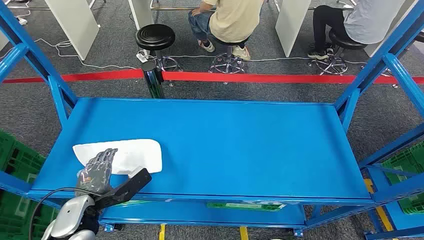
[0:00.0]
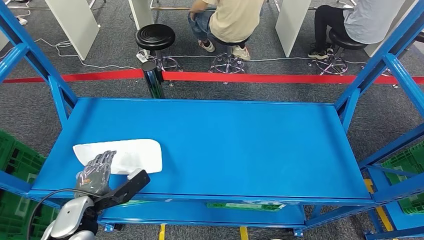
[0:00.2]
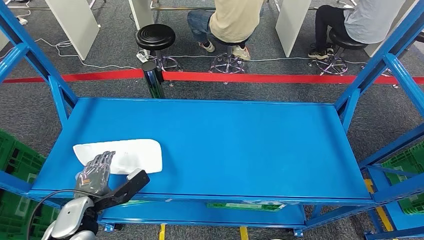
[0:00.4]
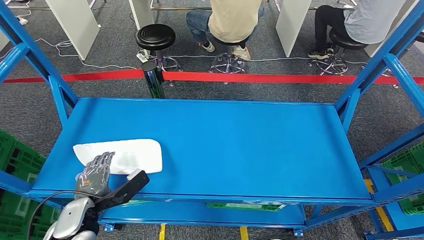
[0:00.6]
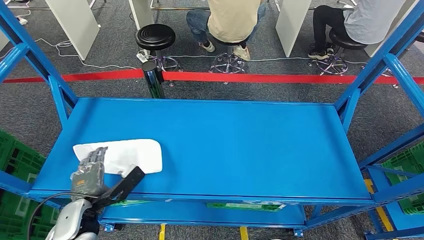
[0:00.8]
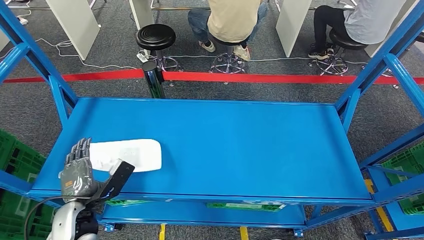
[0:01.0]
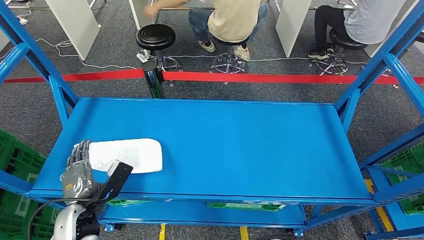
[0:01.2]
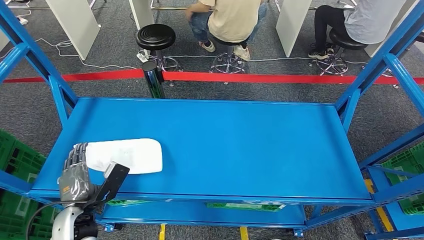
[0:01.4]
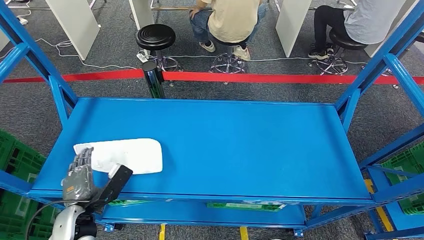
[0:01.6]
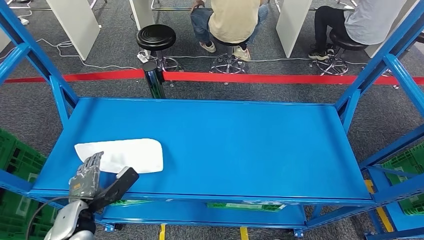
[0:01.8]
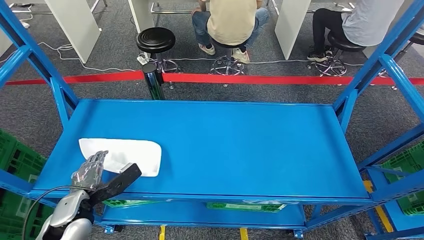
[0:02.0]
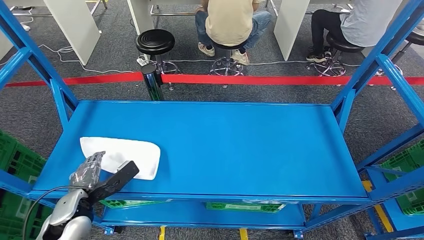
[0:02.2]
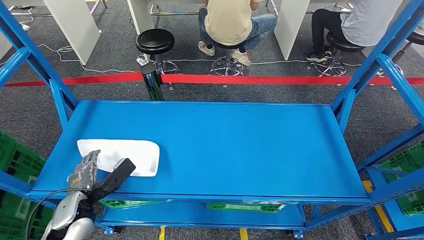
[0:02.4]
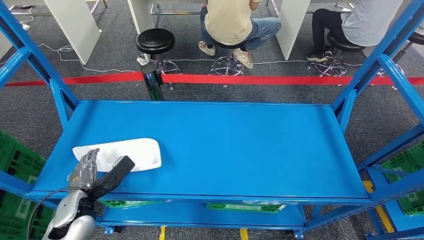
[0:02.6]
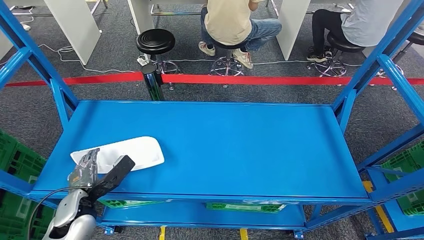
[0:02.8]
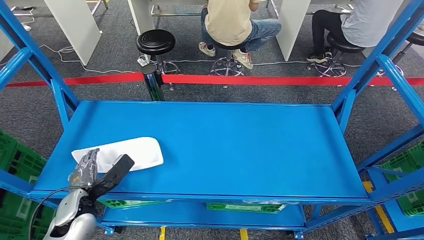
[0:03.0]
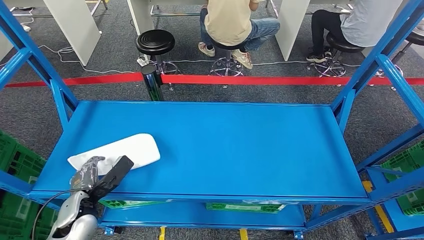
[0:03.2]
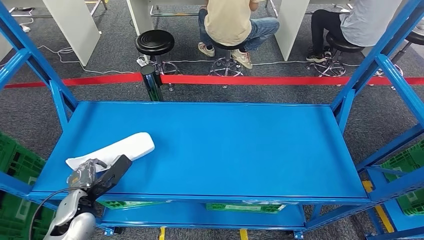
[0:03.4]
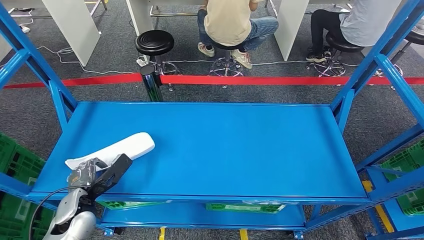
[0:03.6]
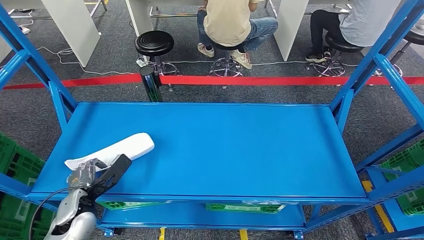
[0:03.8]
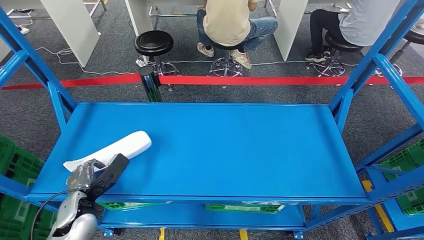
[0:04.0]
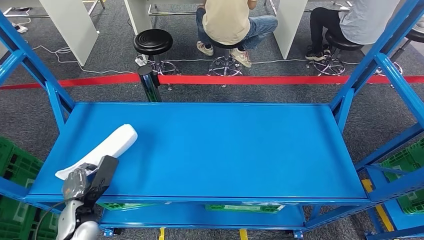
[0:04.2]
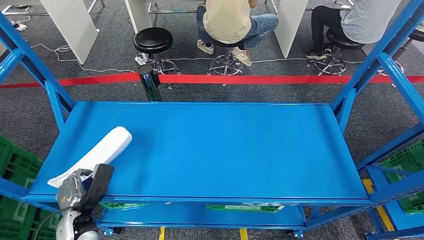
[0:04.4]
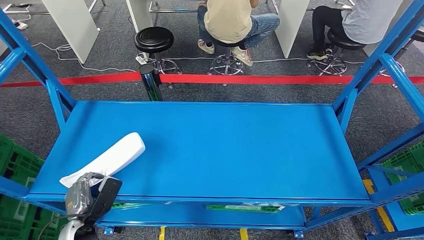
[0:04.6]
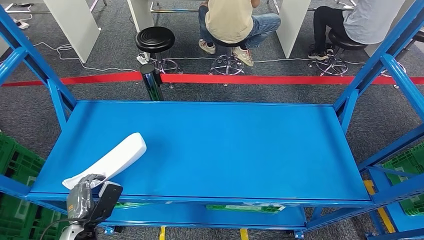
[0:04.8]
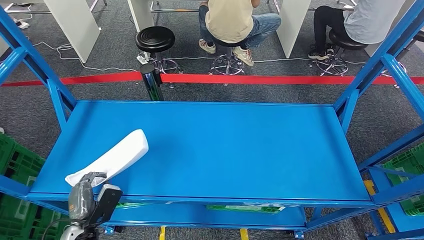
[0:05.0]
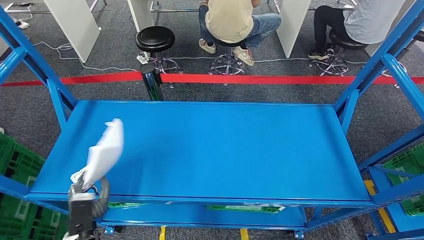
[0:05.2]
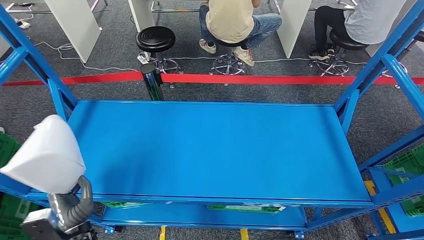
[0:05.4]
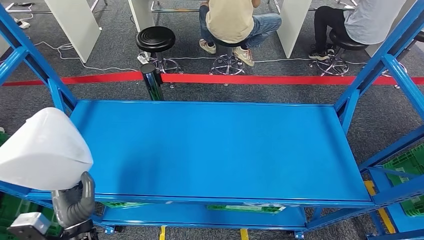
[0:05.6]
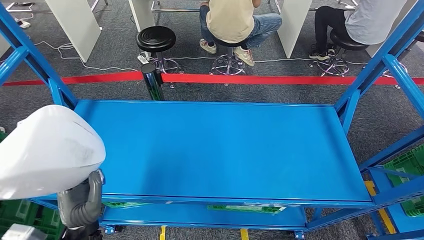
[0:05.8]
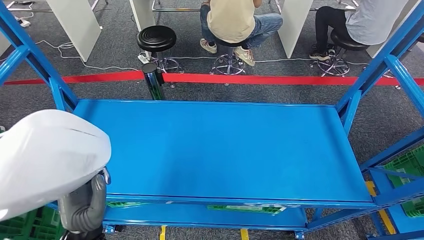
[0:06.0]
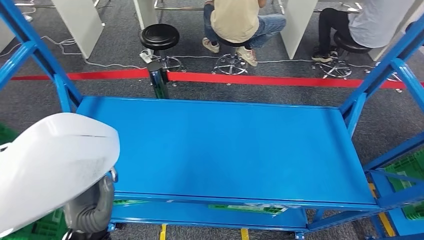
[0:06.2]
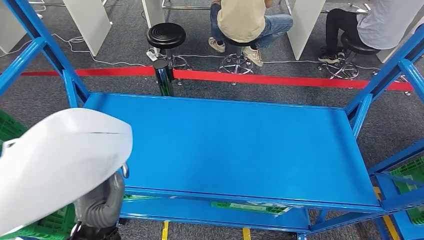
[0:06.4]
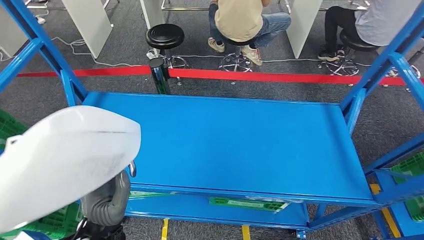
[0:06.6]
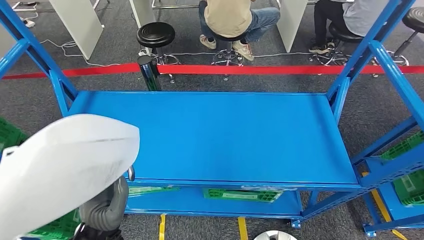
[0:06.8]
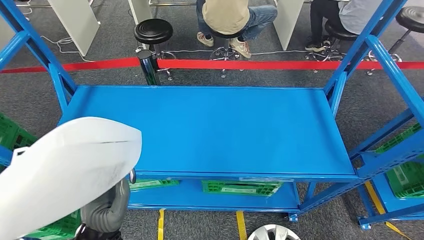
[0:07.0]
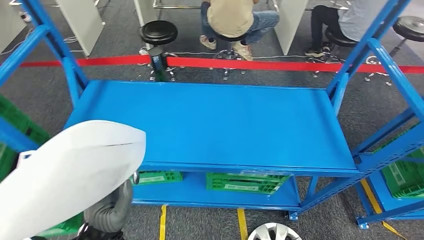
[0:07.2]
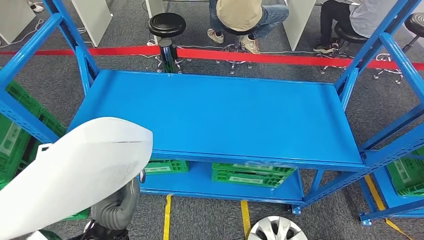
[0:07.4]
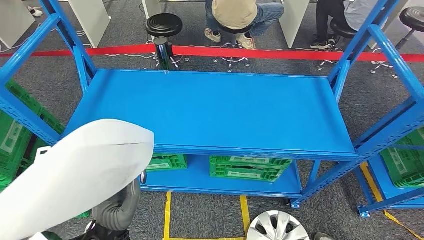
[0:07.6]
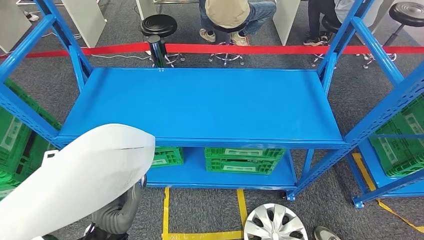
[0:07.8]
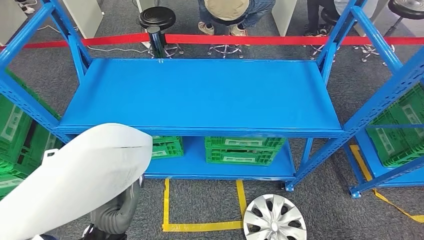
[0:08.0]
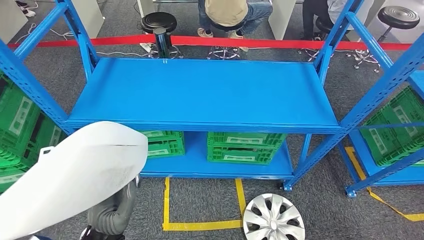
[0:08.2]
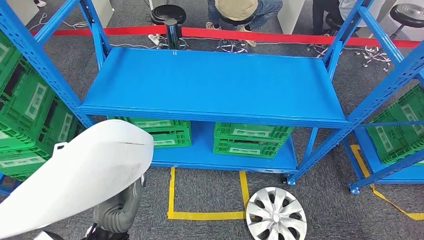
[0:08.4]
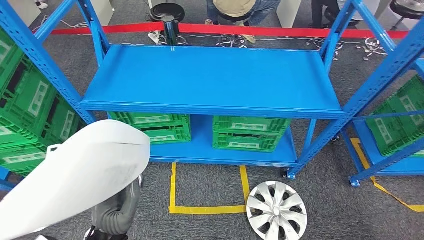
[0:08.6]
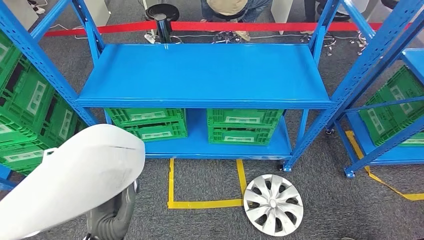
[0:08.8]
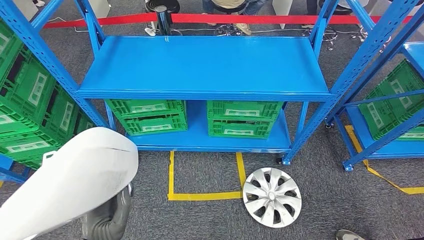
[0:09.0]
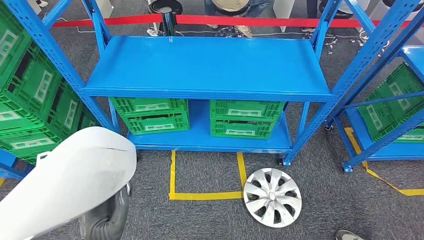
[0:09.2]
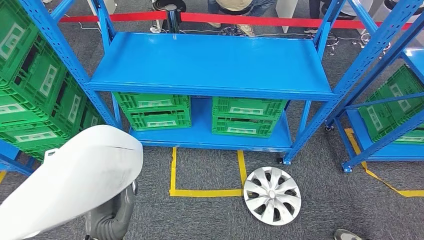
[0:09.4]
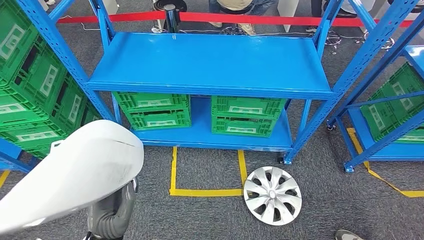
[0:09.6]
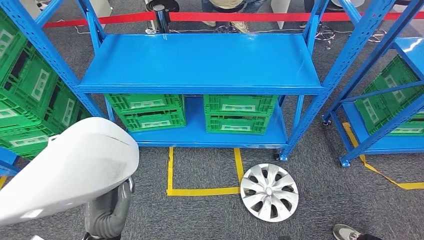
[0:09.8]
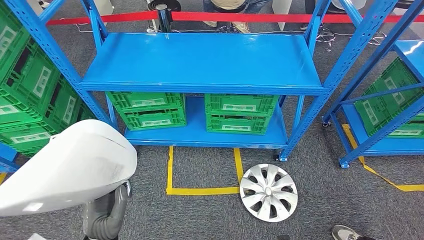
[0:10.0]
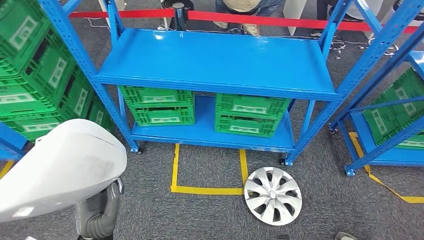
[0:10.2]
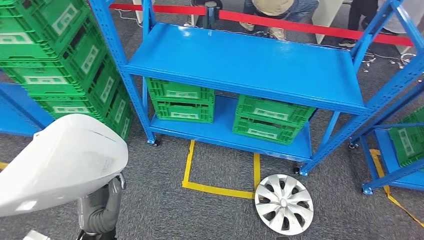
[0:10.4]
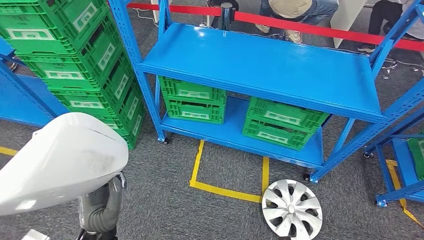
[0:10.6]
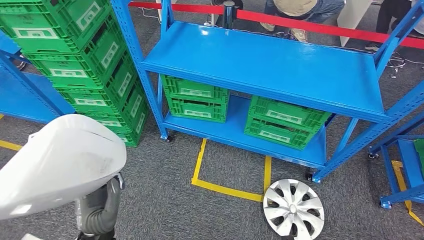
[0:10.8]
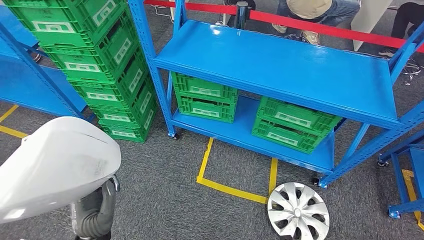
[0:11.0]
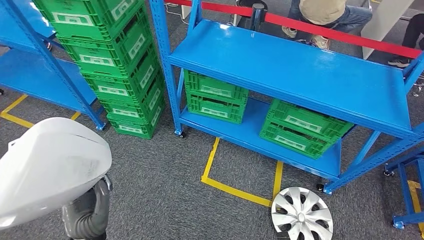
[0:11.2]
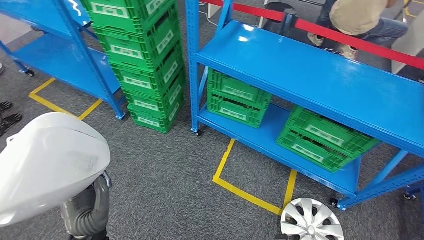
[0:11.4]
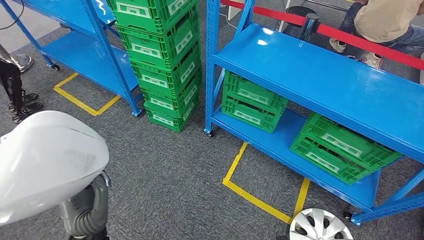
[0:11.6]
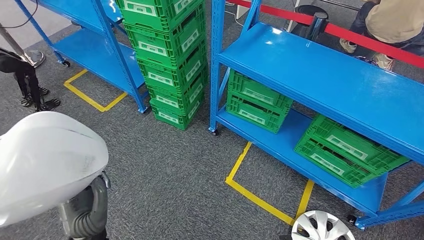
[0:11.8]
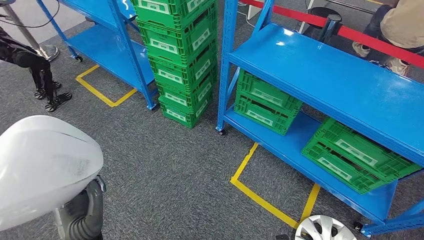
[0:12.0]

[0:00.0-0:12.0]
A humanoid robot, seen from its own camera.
Step, 0:00.0 to 0:05.0: Pick up the small component from the shelf.

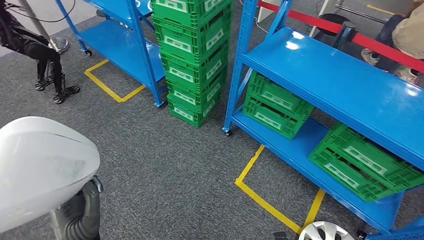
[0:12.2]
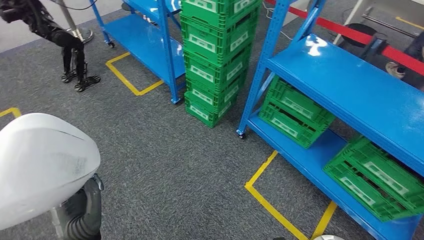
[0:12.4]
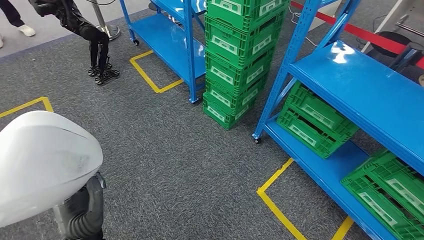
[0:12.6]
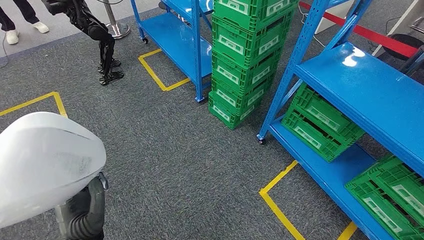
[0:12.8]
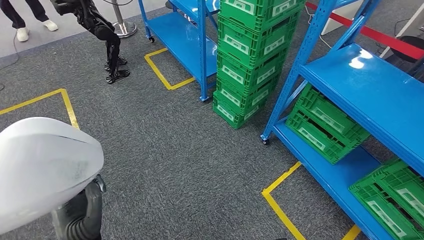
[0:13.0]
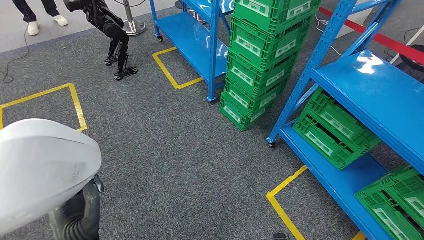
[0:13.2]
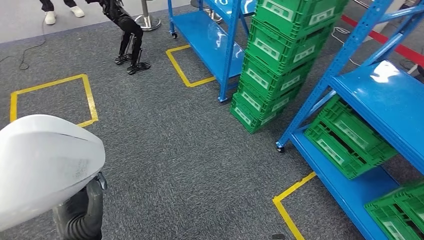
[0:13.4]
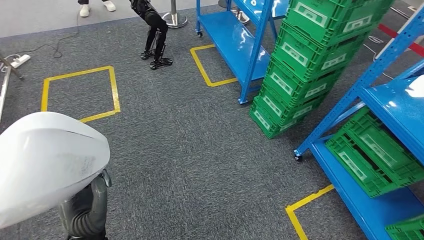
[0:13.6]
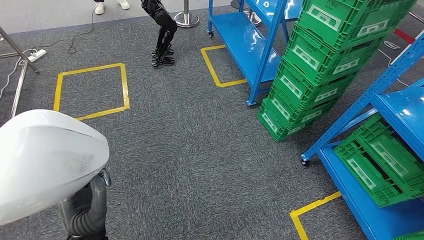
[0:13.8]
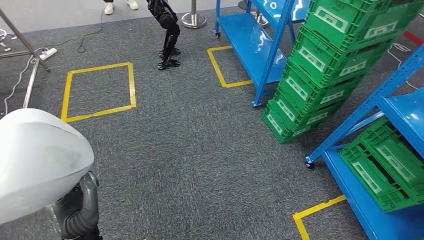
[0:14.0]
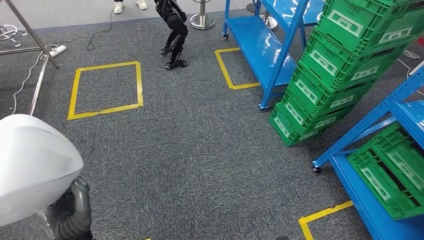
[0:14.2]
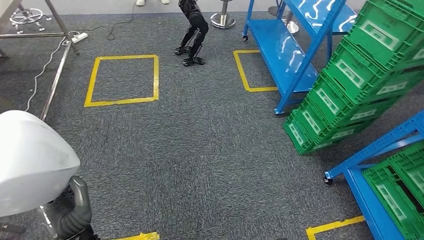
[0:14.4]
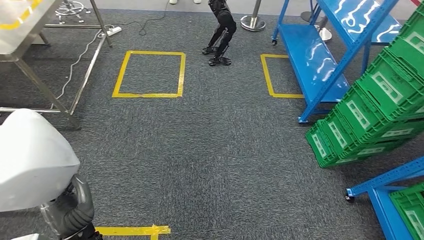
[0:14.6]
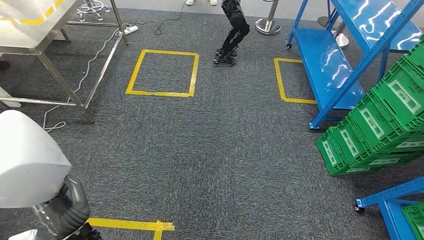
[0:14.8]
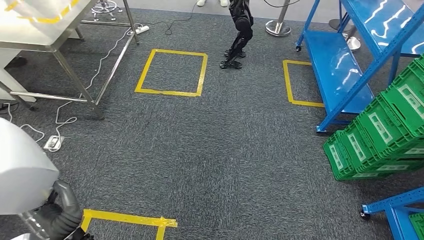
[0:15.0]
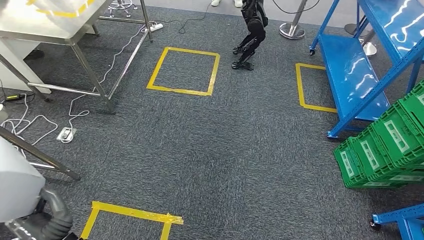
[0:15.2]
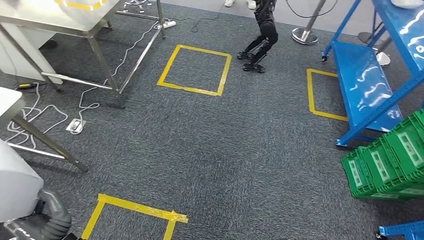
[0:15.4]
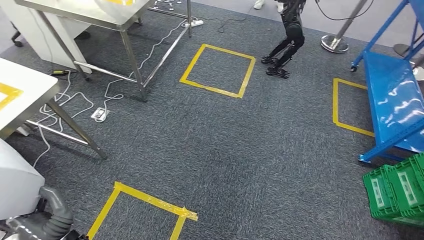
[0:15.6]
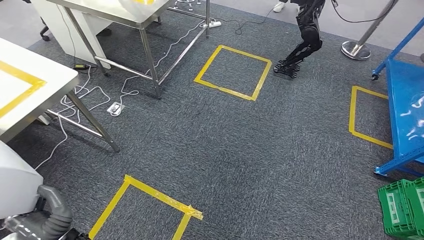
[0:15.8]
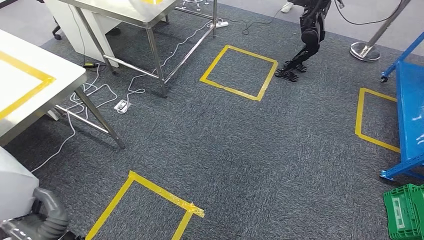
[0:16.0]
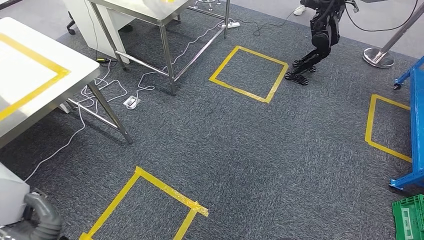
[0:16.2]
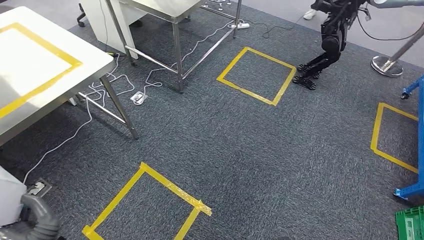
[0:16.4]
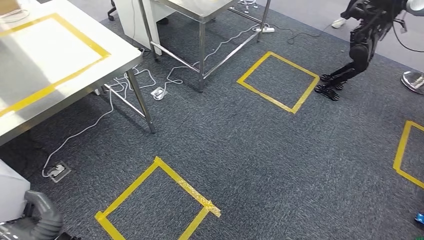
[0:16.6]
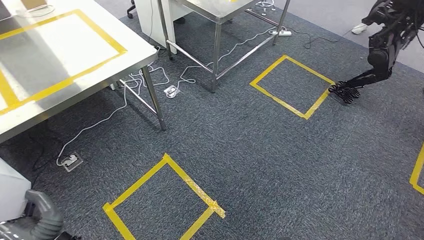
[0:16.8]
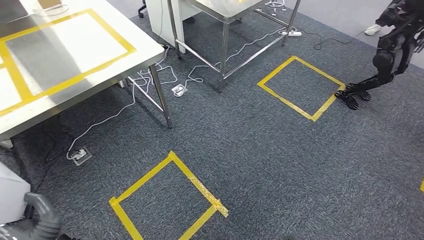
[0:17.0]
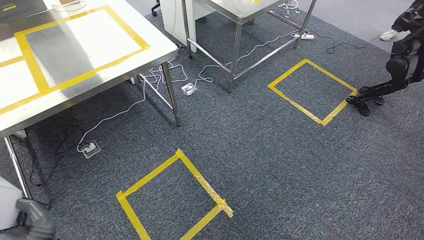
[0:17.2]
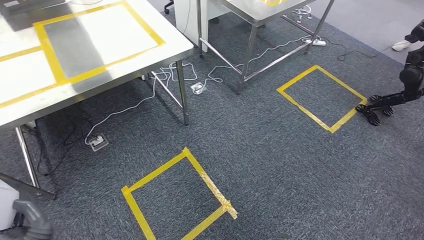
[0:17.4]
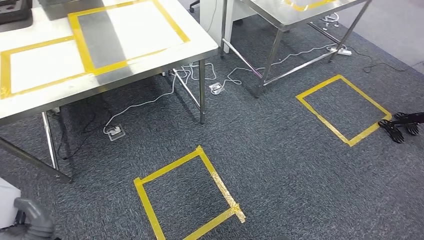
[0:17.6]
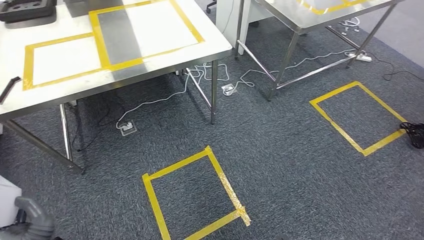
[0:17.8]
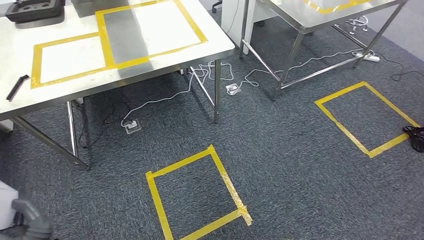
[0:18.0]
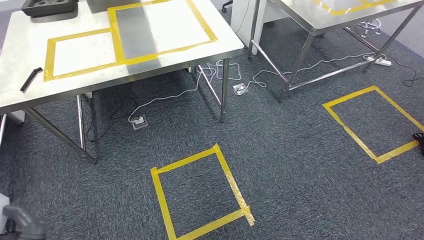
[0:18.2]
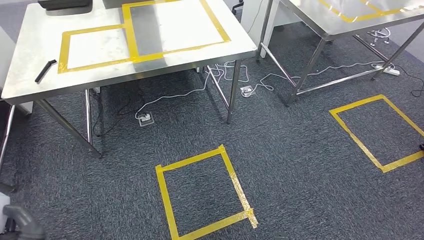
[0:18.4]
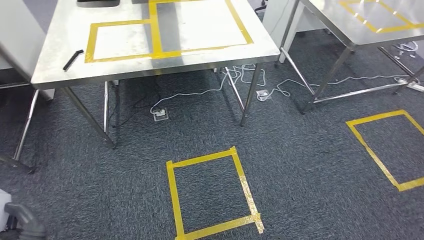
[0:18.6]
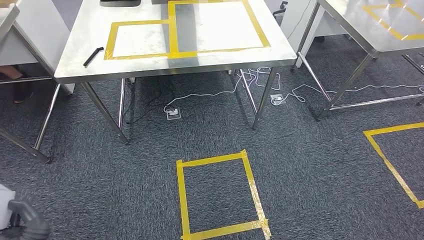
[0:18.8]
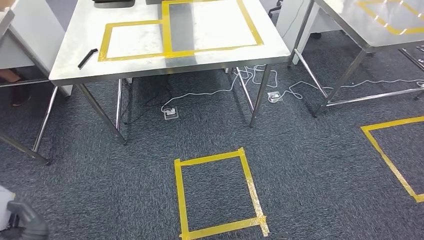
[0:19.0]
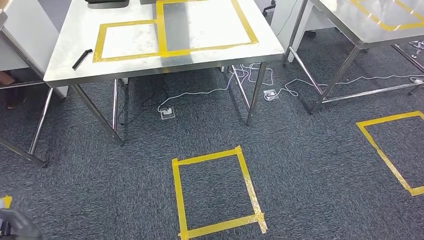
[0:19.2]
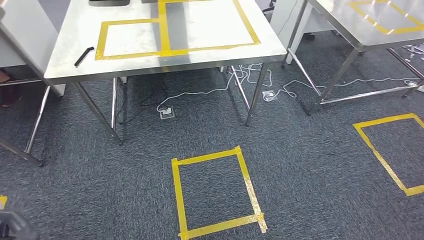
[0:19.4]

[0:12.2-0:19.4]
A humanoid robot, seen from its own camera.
Step, 0:12.2 to 0:18.0: Move the small component to the workbench.
